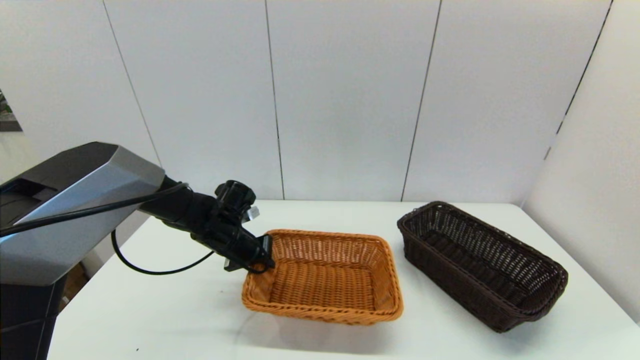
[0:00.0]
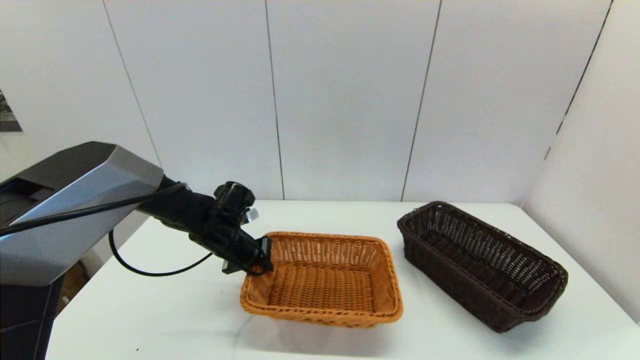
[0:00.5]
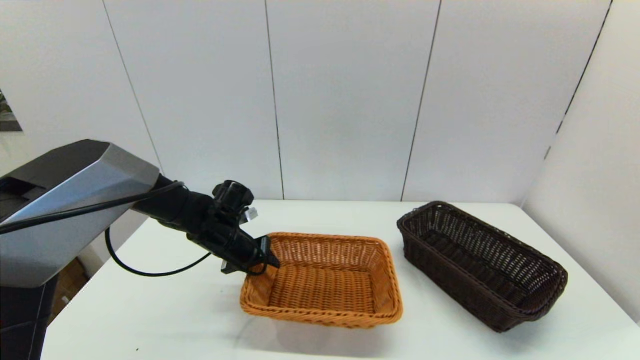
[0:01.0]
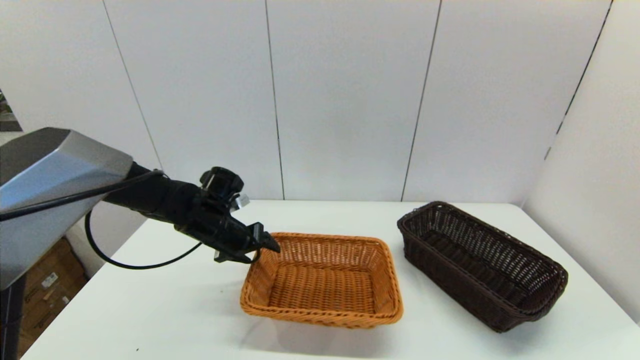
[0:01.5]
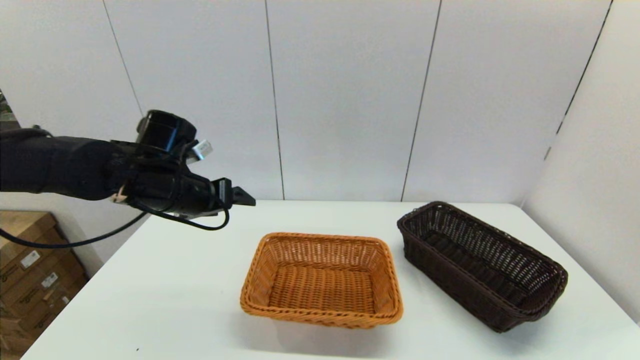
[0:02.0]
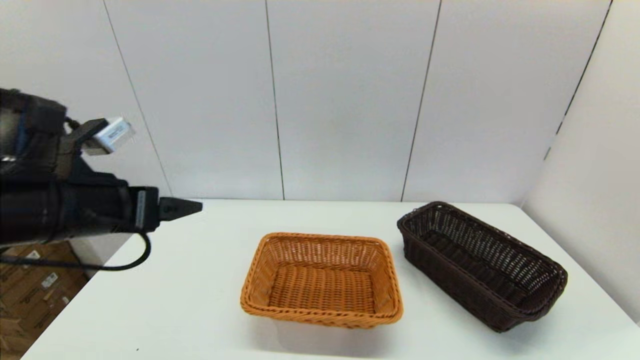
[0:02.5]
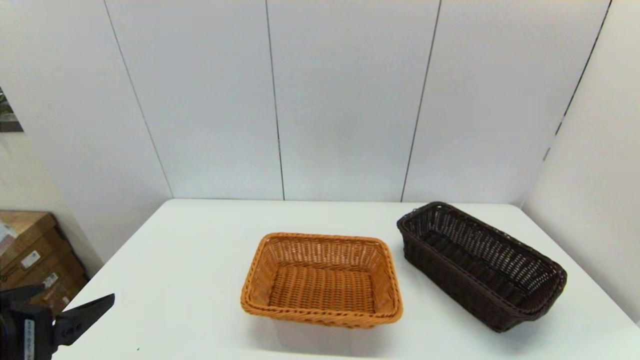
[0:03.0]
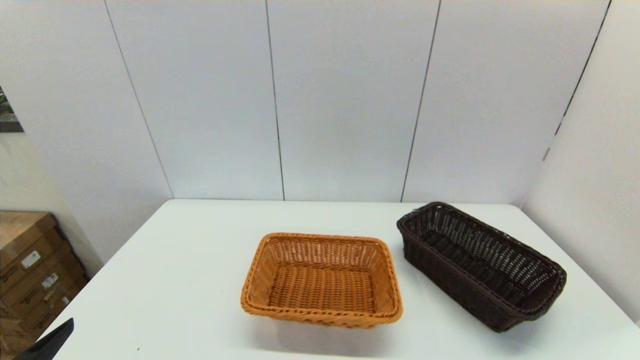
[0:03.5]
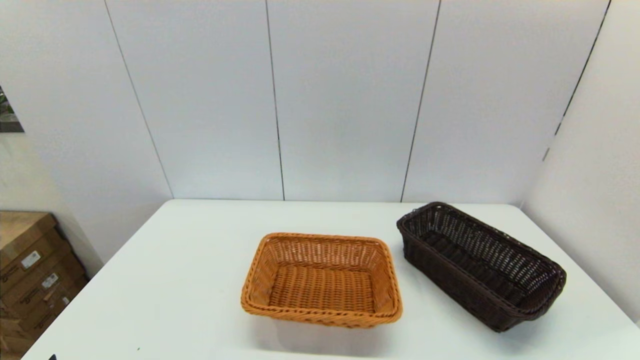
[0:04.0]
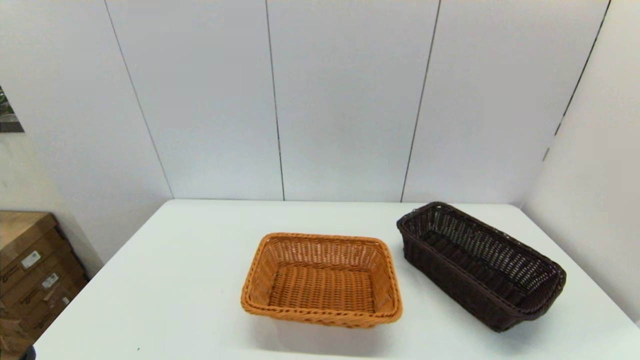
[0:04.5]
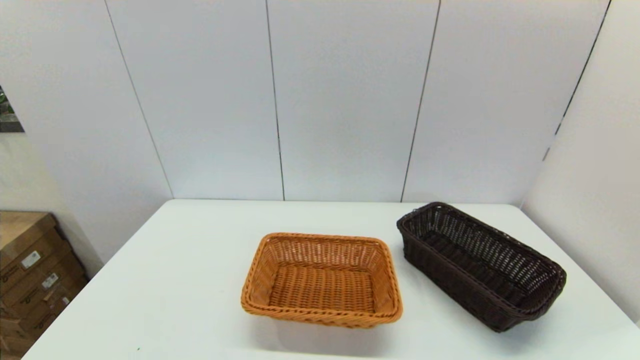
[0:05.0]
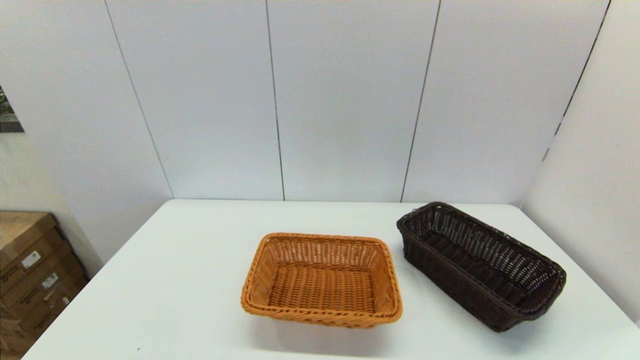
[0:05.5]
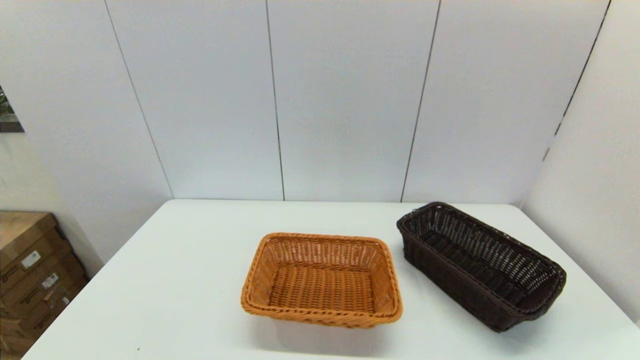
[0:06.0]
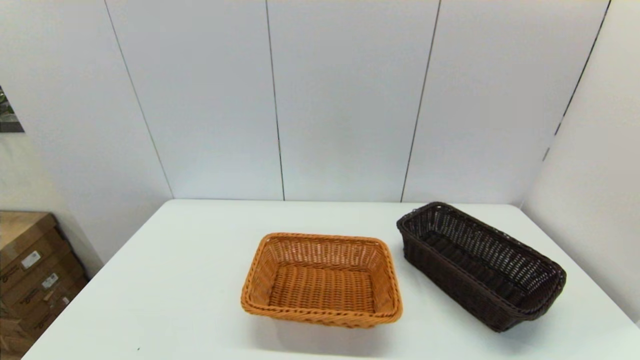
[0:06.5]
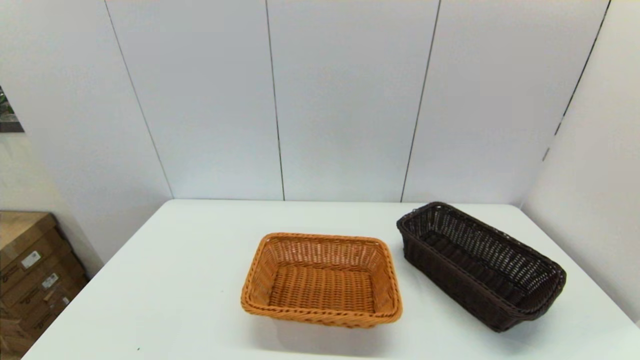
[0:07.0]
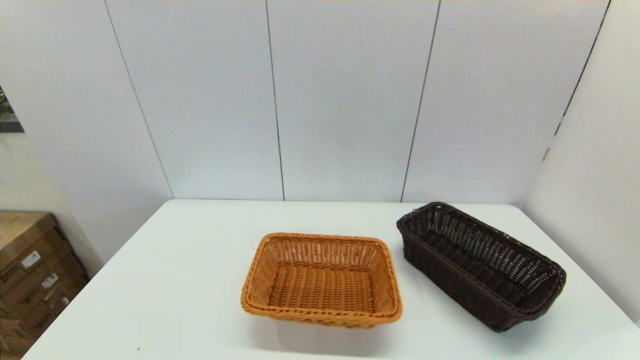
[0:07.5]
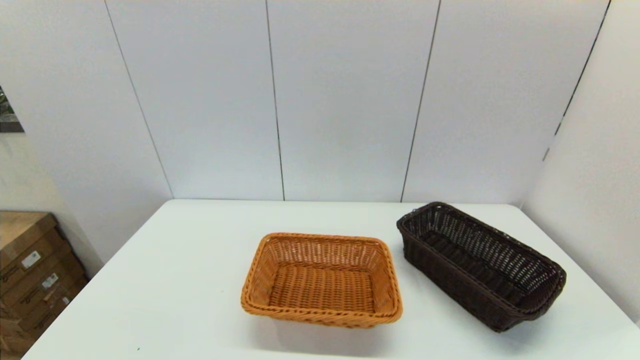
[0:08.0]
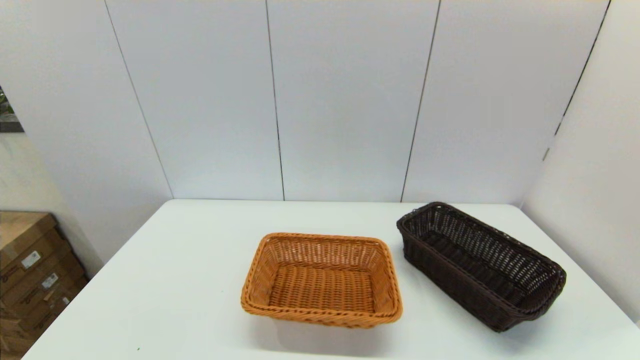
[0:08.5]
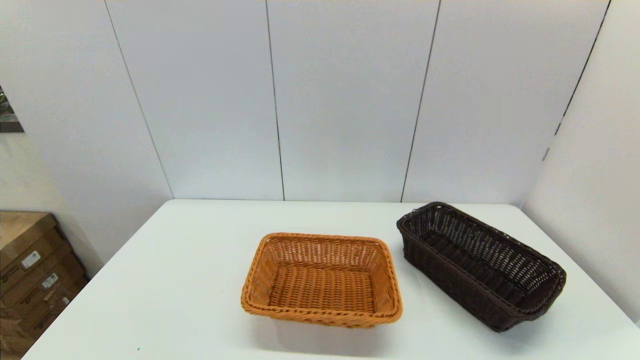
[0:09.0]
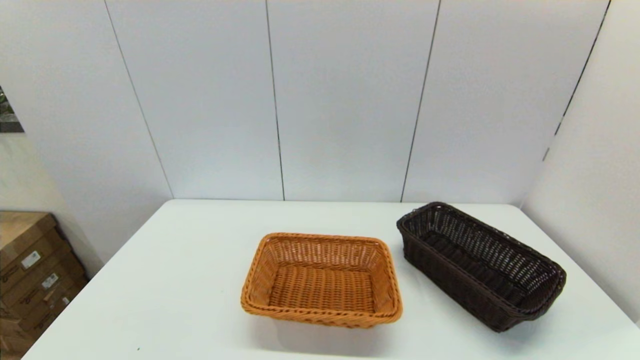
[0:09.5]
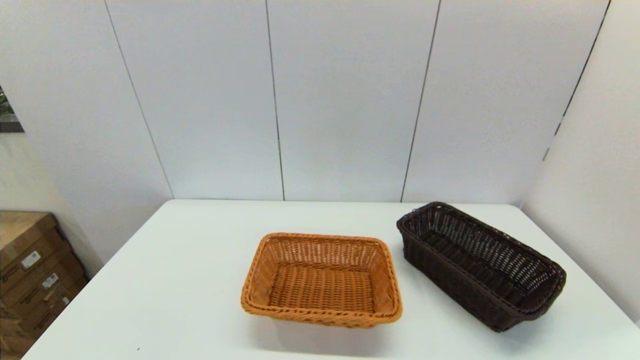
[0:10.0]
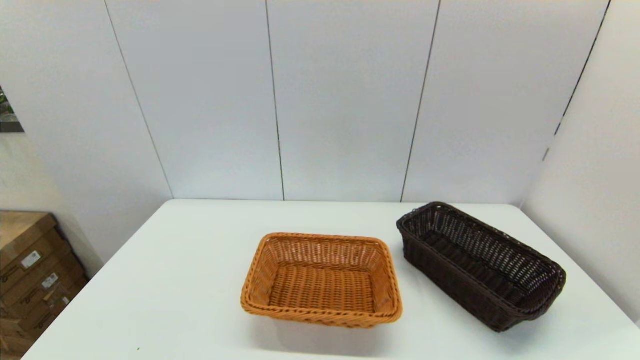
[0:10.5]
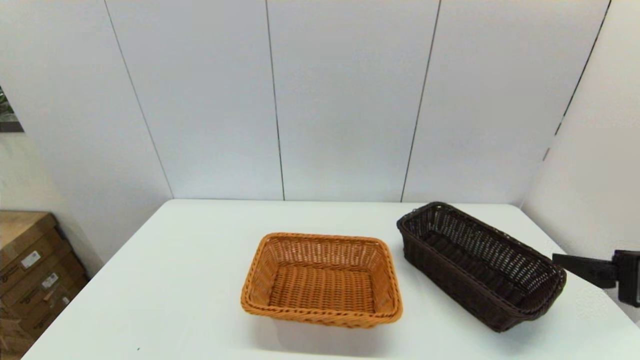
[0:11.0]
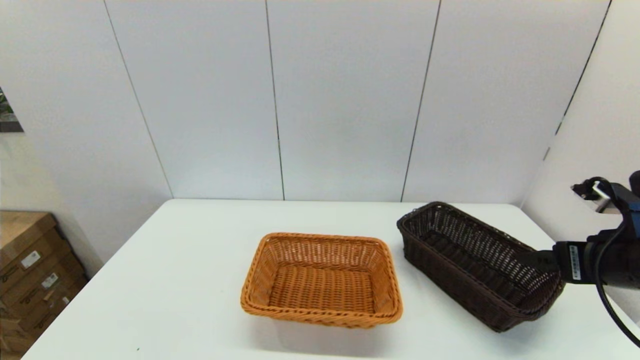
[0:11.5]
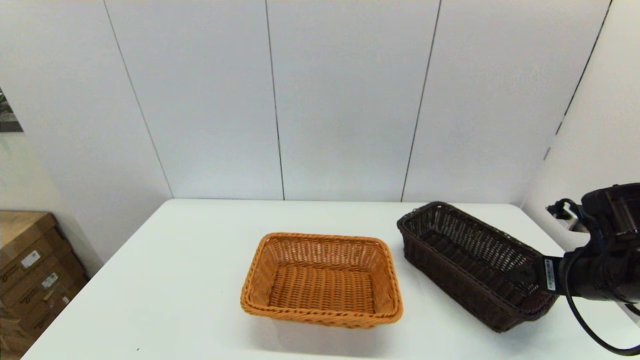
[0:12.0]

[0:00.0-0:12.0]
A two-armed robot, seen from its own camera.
Task of the whole recording: stack a basket on top of another basket.
0:00.0 to 0:02.0: The left gripper travels upward by roughly 15 cm, and opens.
0:02.0 to 0:04.0: The left gripper moves backward, some 30 cm.
0:06.0 to 0:08.0: Neither gripper changes place.
0:10.0 to 0:12.0: The right gripper goes approximately 25 cm forward.

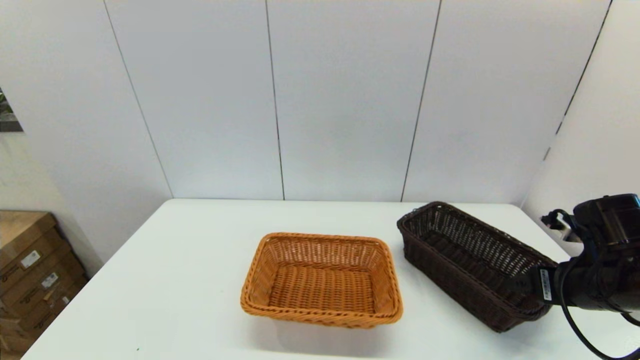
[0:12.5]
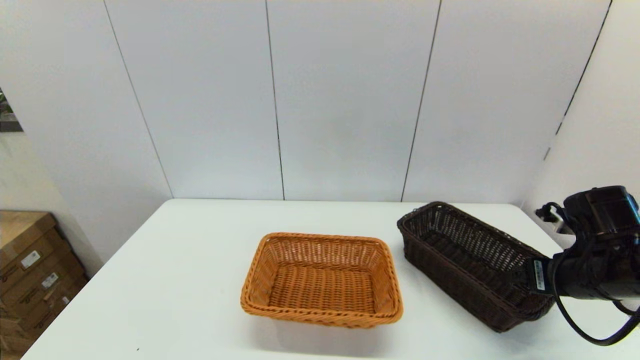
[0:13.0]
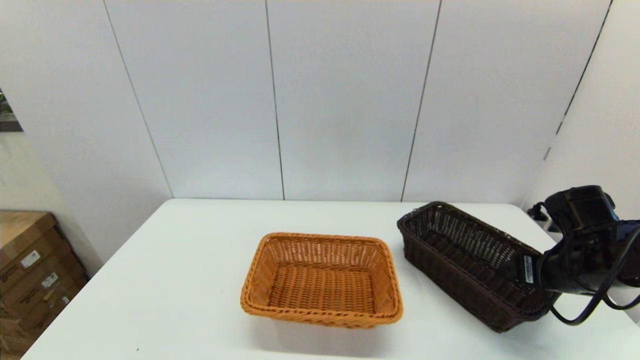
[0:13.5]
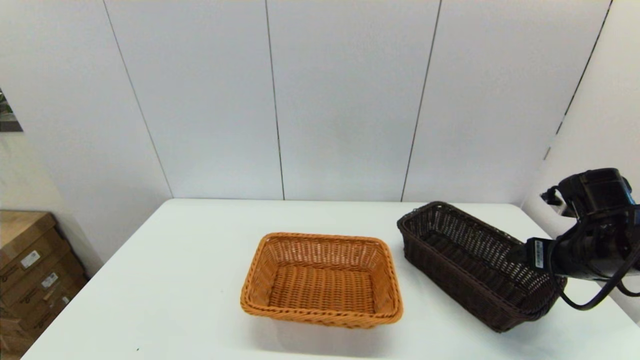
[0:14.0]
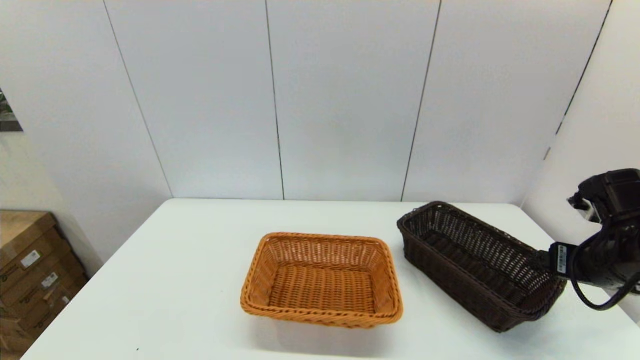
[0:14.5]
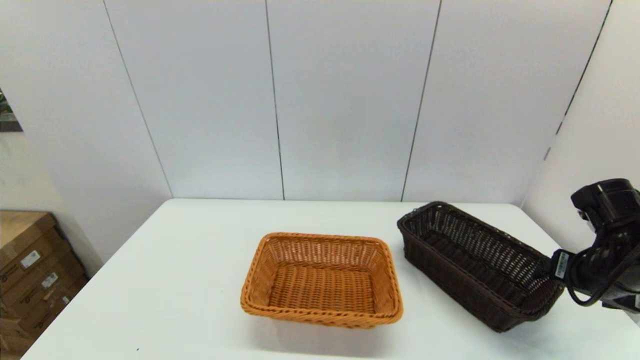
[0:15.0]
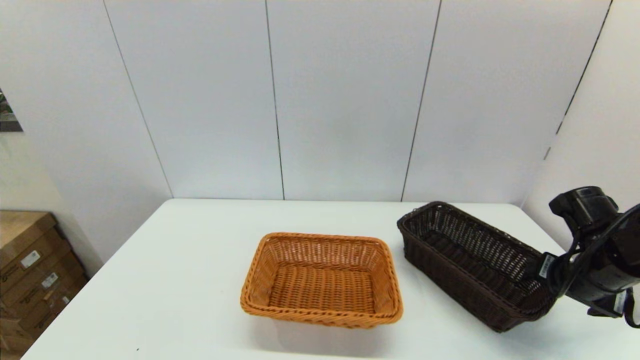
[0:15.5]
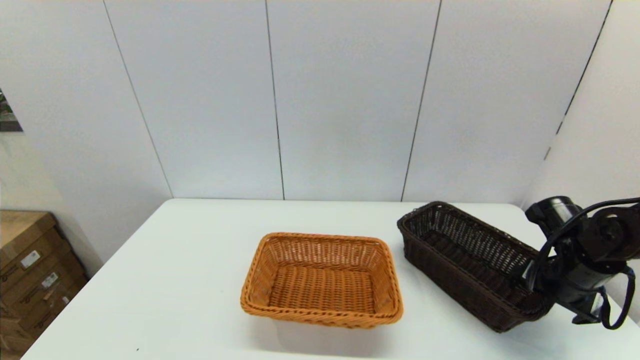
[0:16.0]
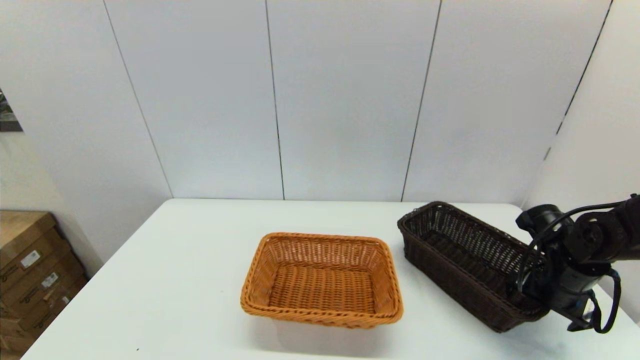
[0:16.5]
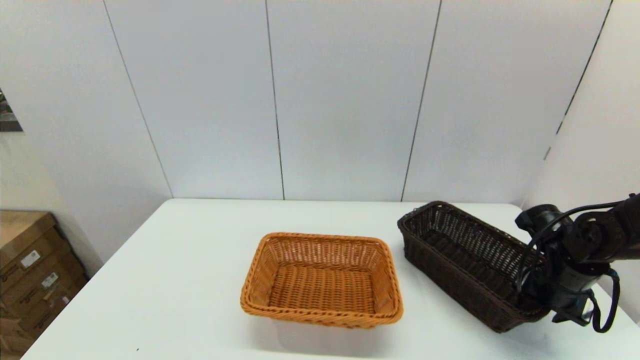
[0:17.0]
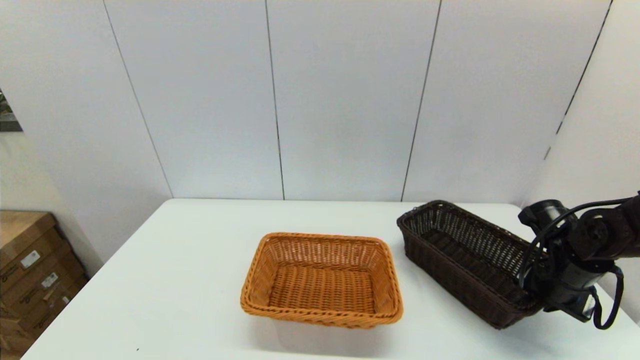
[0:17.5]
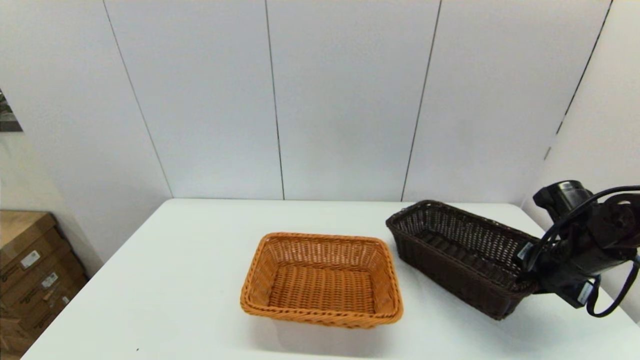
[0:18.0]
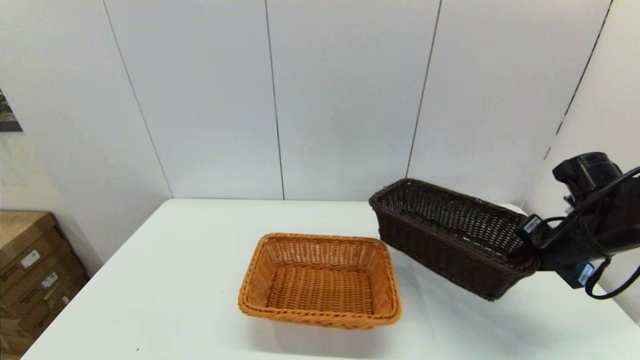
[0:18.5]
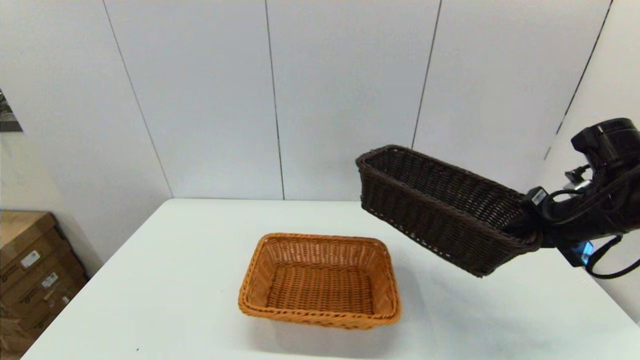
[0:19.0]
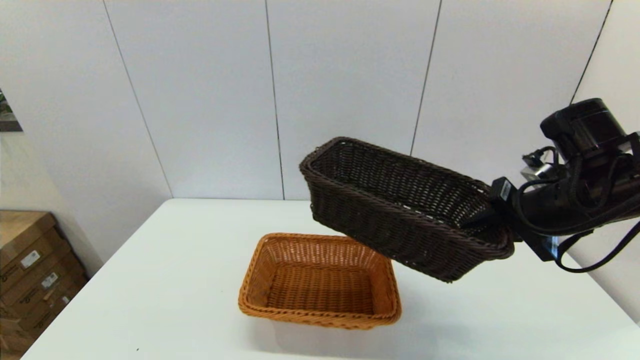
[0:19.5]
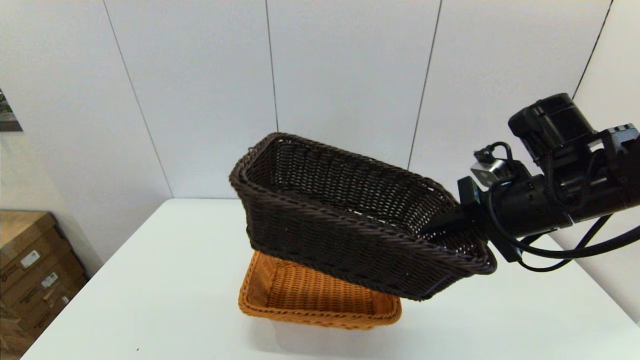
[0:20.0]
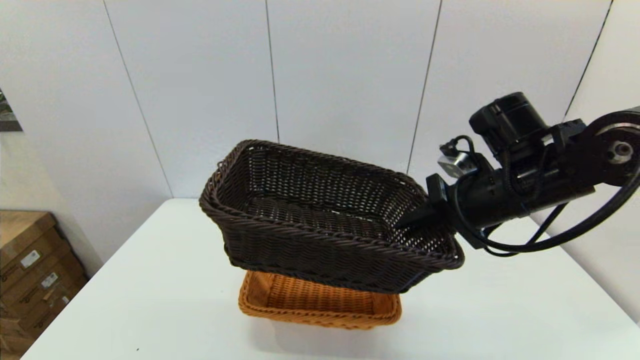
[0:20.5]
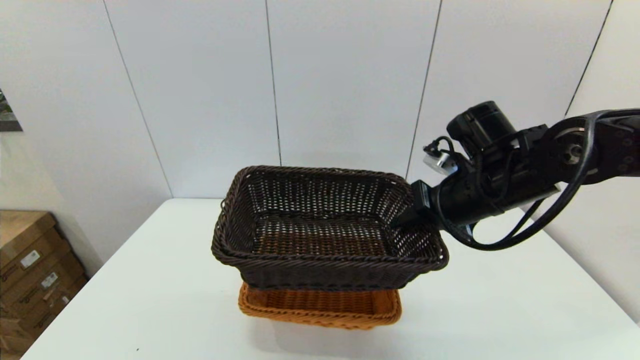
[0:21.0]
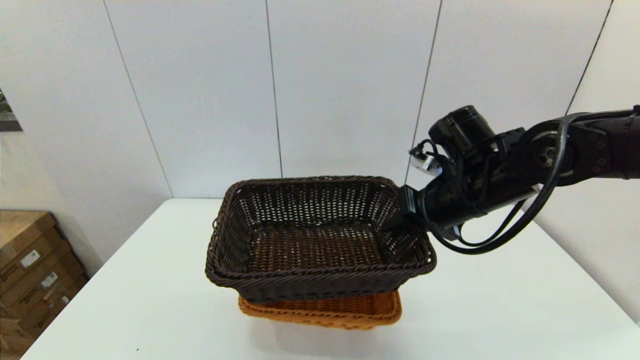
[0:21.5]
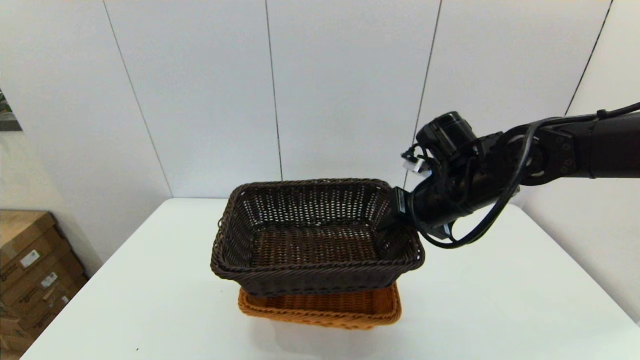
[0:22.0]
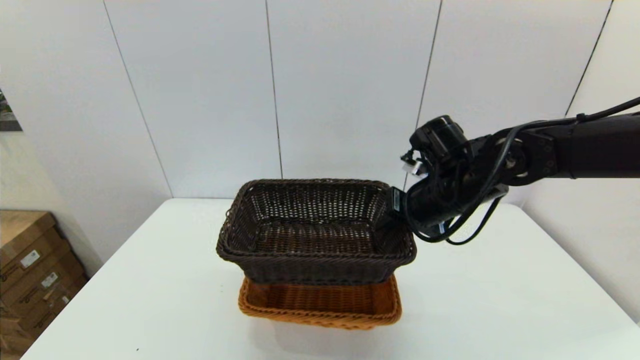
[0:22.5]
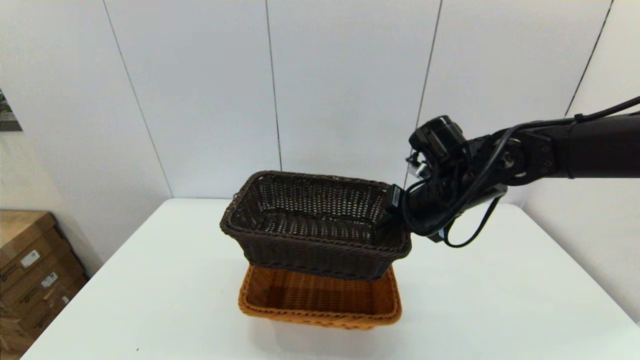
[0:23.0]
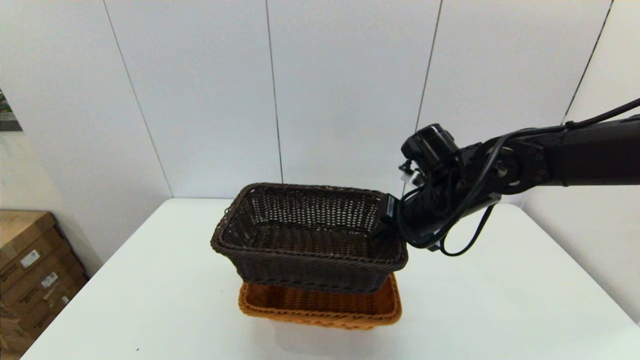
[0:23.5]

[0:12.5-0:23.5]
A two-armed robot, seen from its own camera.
Task of the whole recording: stack a basket on top of another basket.
Step, 0:12.5 to 0:17.5: Grasp the dark basket with the right gripper.
0:12.5 to 0:14.5: The grippers stay close to where they were, moving slightly.
0:14.5 to 0:16.0: The right gripper travels downward by some 5 cm.
0:16.0 to 0:18.0: The right gripper closes its fingers.
0:18.0 to 0:20.0: The right gripper shifts approximately 15 cm upward and to the left.
0:20.0 to 0:21.5: The right gripper heads to the left, covering about 5 cm.
0:21.5 to 0:23.5: The grippers move only a little.
